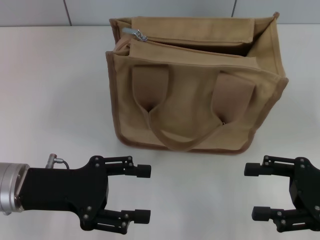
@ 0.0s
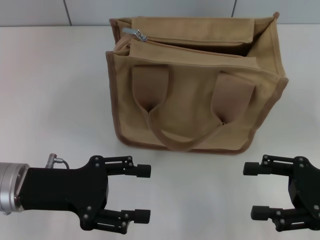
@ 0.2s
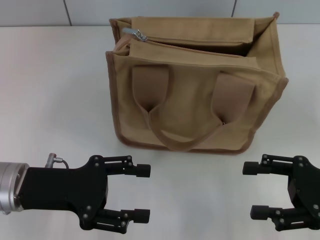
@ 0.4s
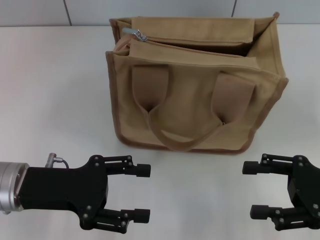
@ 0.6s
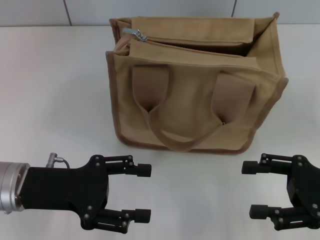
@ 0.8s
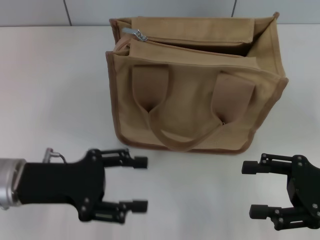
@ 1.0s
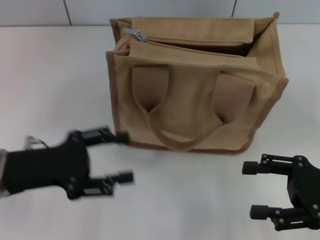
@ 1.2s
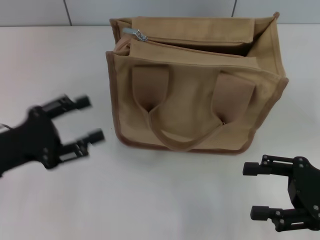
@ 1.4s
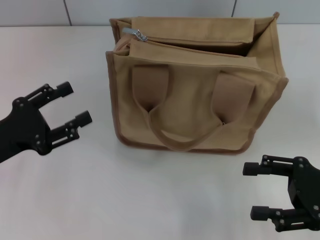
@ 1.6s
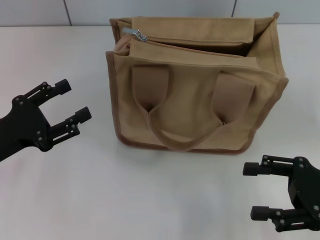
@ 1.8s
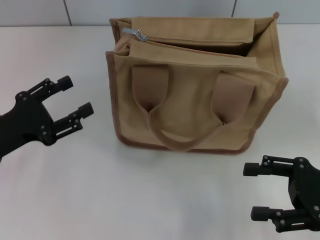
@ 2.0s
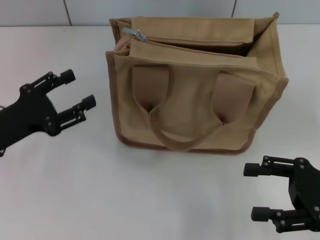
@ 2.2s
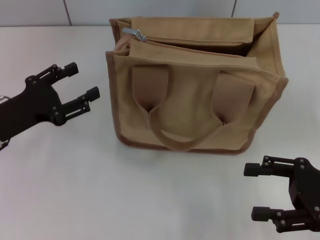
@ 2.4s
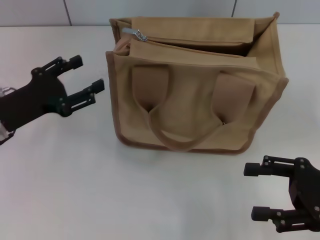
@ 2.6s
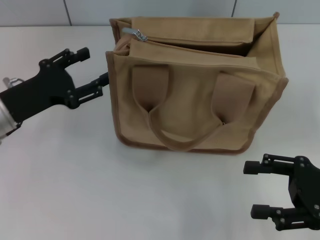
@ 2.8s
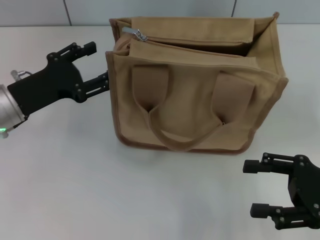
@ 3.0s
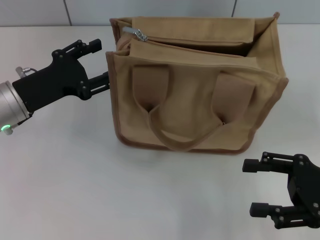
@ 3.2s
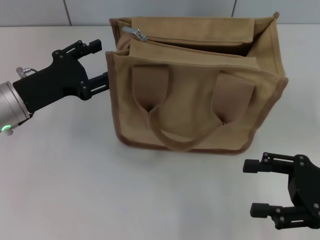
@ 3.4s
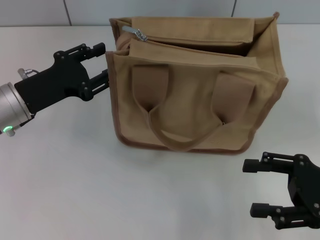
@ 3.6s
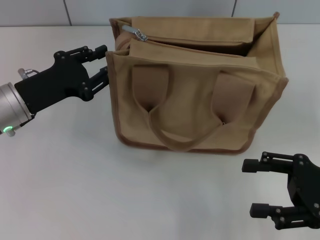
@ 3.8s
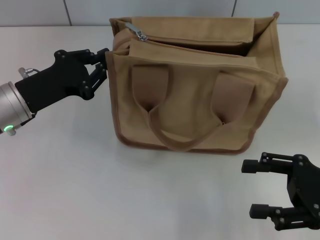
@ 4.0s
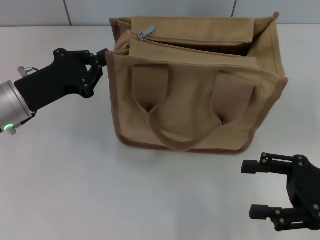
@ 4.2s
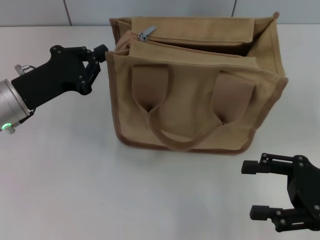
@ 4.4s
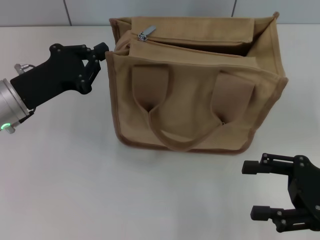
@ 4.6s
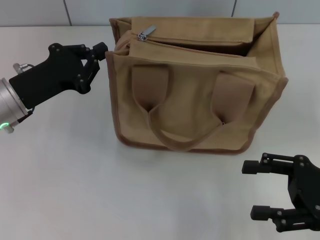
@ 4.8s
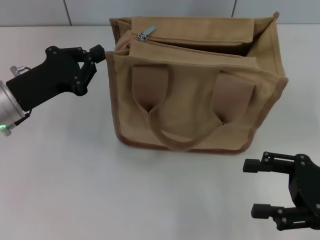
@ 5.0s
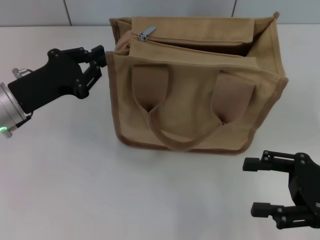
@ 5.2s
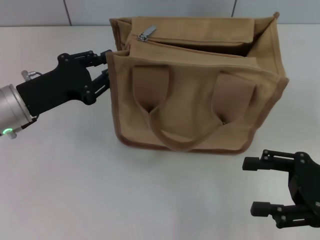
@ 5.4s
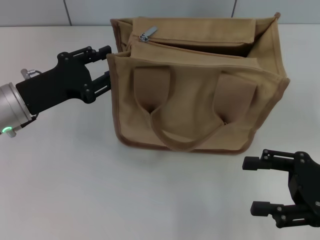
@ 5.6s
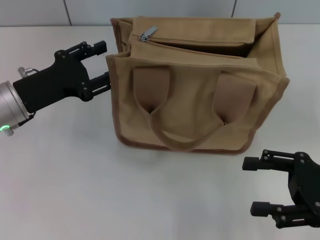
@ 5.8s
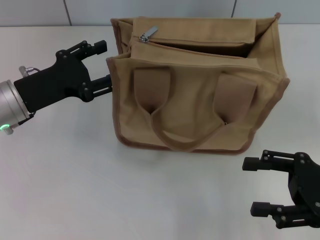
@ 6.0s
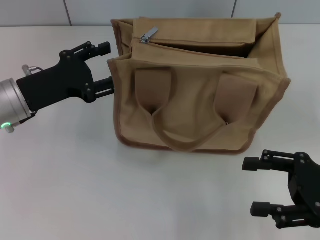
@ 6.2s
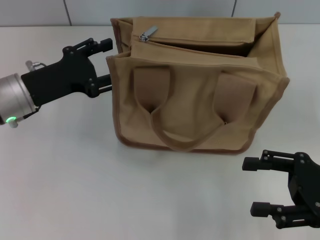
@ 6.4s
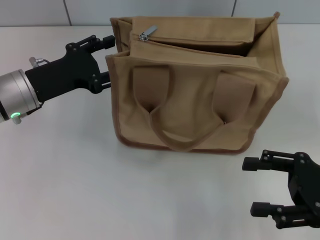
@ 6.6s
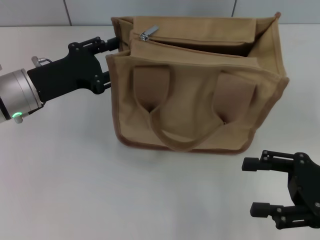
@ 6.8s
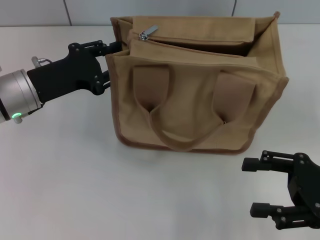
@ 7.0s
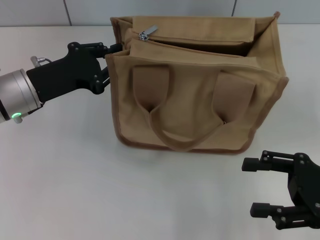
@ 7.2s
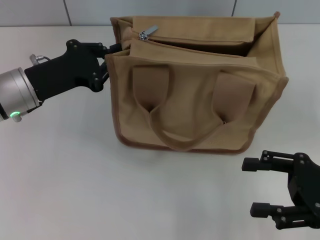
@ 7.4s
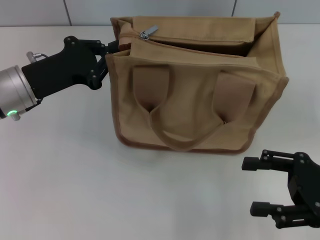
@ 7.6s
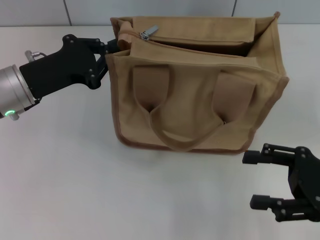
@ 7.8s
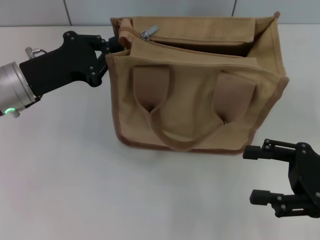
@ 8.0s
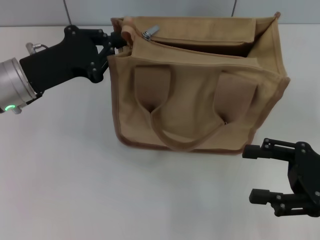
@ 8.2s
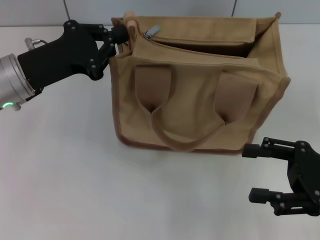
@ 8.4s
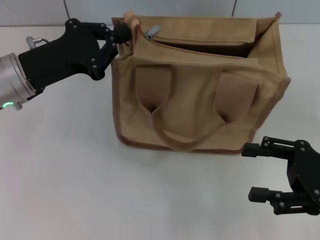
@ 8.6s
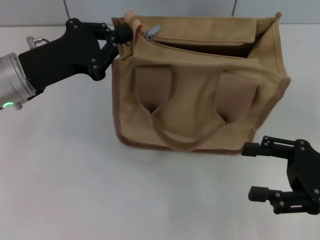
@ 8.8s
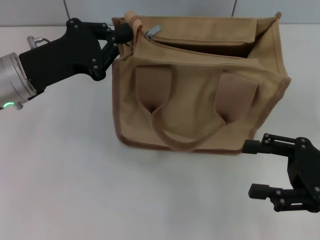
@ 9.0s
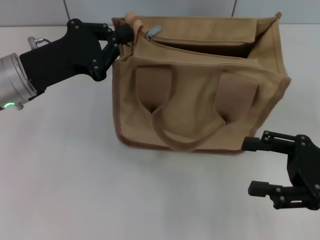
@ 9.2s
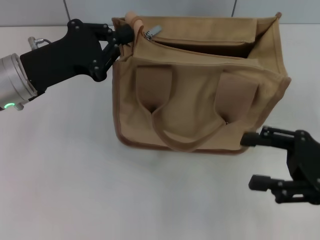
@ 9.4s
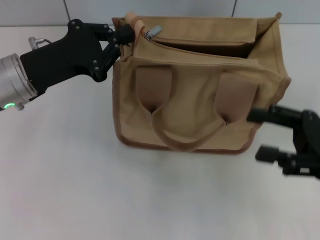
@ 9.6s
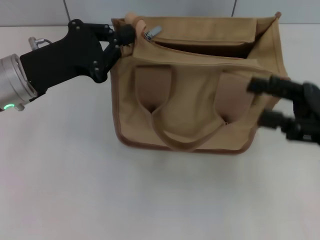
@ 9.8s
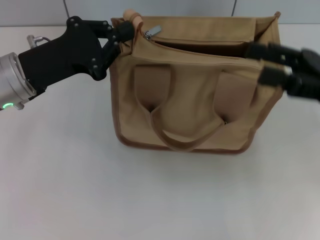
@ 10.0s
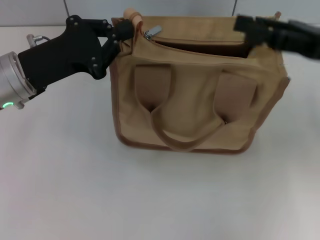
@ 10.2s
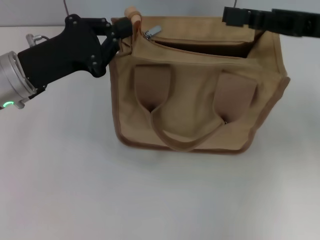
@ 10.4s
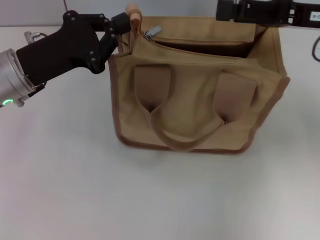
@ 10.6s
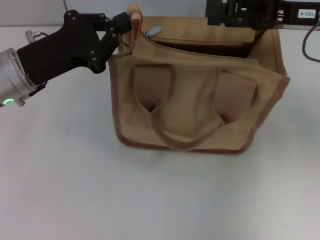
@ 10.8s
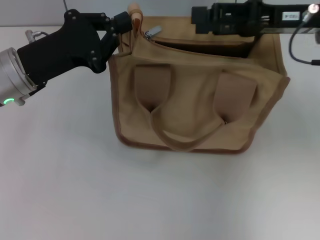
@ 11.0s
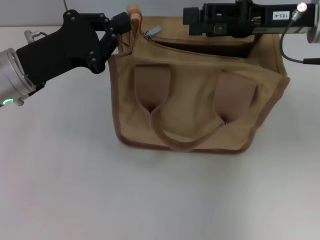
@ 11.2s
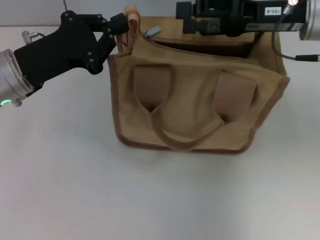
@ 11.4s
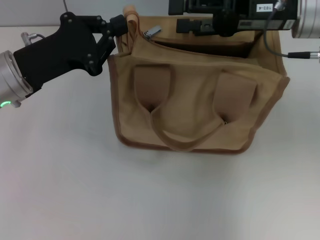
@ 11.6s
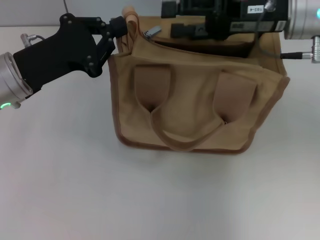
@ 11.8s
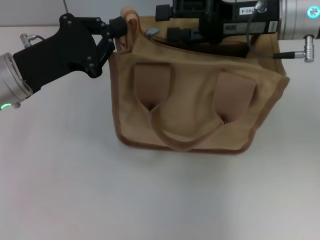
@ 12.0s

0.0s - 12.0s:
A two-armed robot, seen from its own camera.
0.0s - 1.6s: The left gripper travels to the left by about 5 cm.
1.6s - 3.0s: The left gripper is displaced forward by roughly 10 cm.
3.0s - 4.4s: The left gripper closes.
4.4s - 6.0s: The left gripper opens its fingers.
6.0s - 7.6s: The left gripper closes.
7.6s - 9.0s: The grippers make only small movements.
9.0s - 10.4s: The right gripper goes some 15 cm forward and upward.
10.4s - 12.0s: The right gripper goes approximately 10 cm to the left.

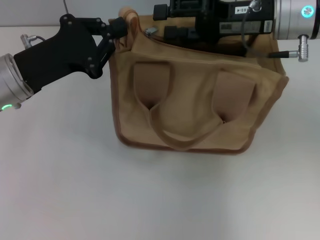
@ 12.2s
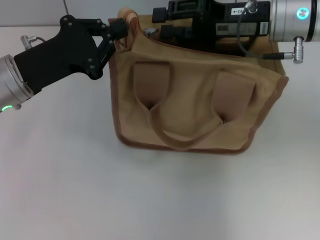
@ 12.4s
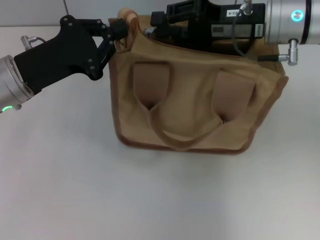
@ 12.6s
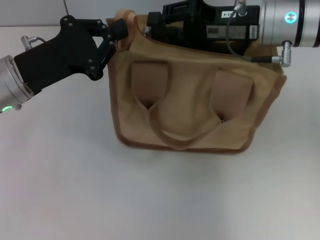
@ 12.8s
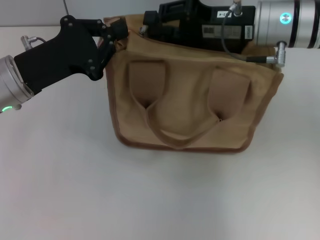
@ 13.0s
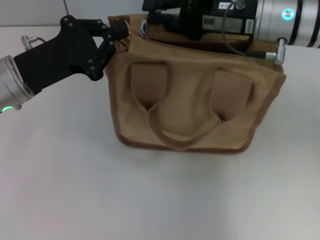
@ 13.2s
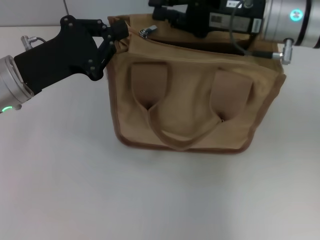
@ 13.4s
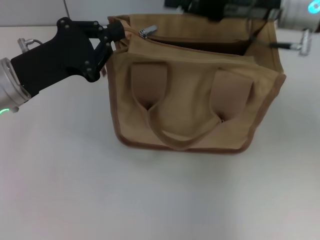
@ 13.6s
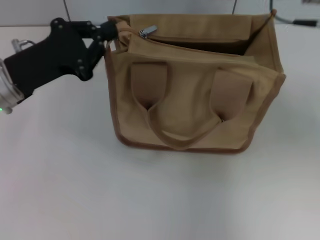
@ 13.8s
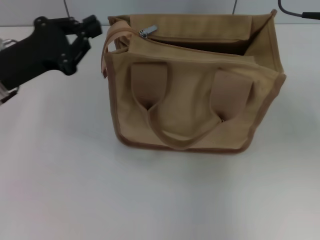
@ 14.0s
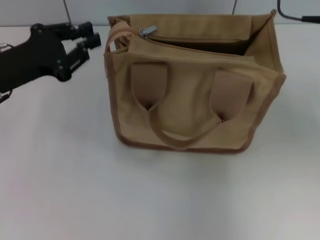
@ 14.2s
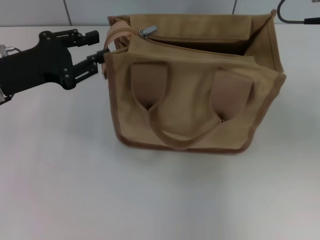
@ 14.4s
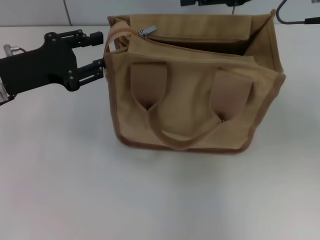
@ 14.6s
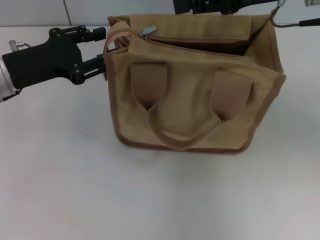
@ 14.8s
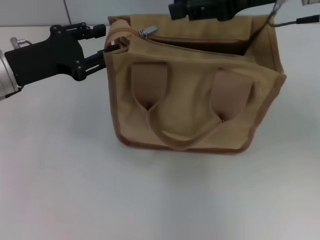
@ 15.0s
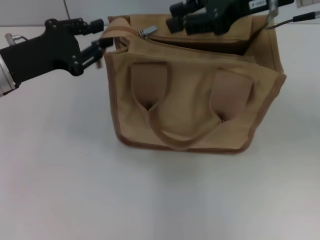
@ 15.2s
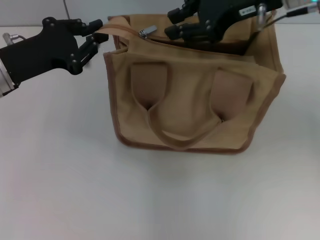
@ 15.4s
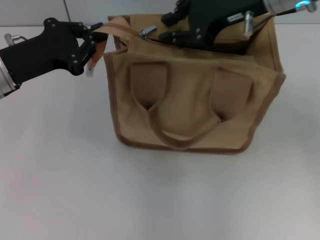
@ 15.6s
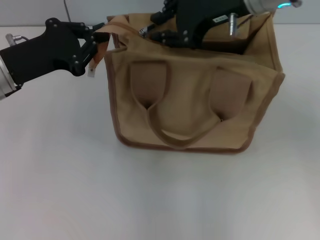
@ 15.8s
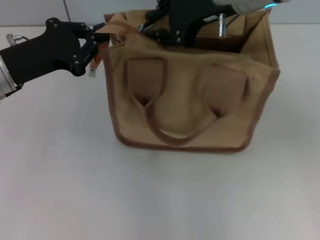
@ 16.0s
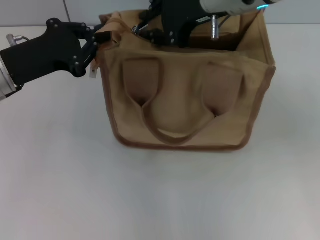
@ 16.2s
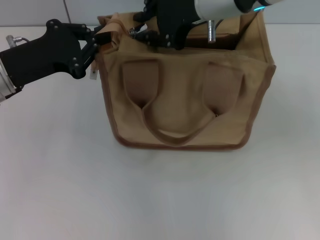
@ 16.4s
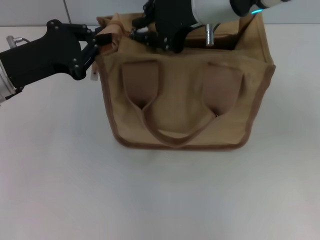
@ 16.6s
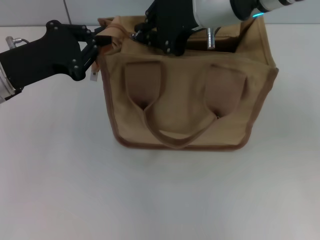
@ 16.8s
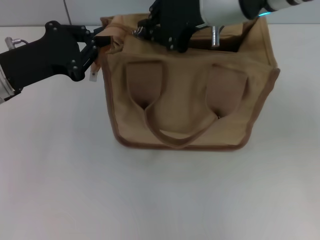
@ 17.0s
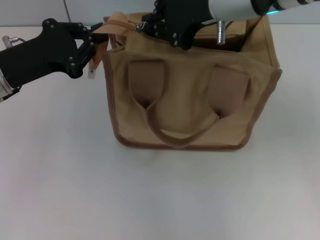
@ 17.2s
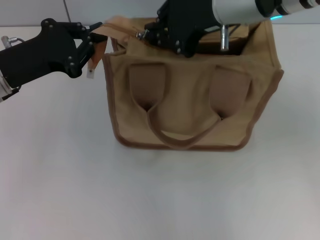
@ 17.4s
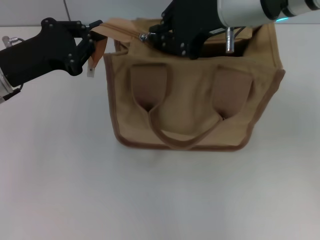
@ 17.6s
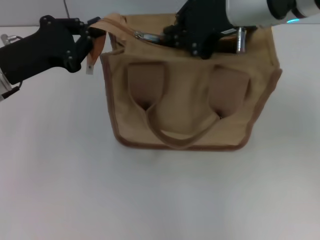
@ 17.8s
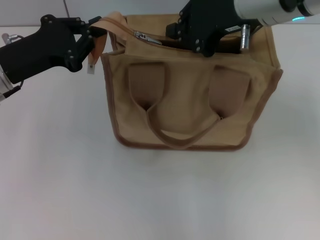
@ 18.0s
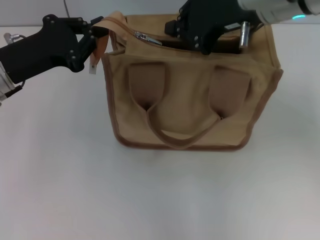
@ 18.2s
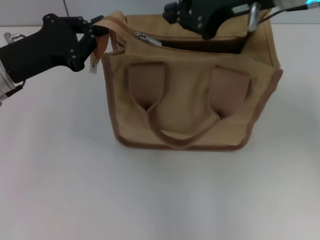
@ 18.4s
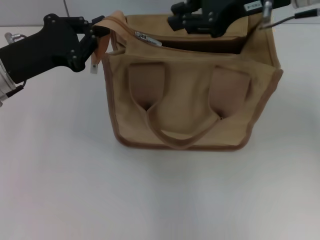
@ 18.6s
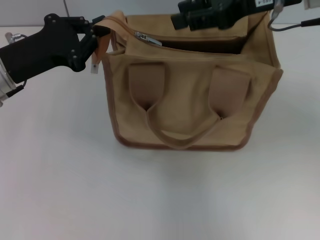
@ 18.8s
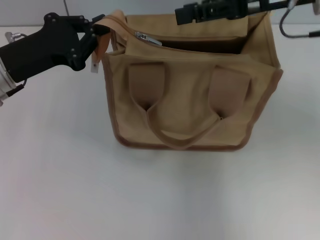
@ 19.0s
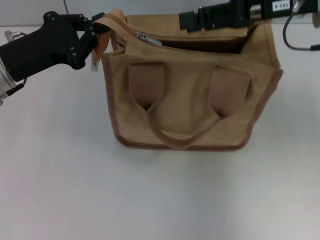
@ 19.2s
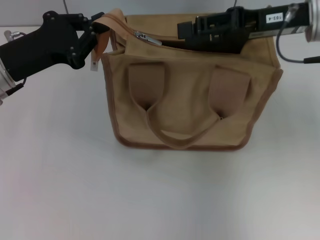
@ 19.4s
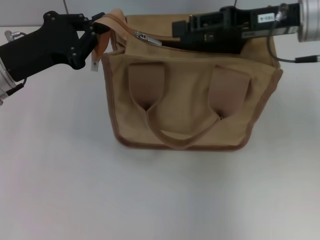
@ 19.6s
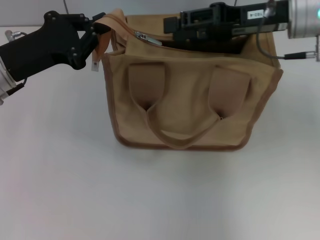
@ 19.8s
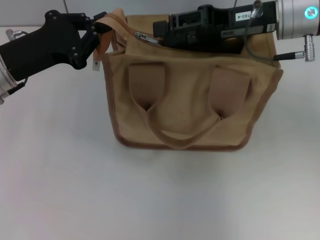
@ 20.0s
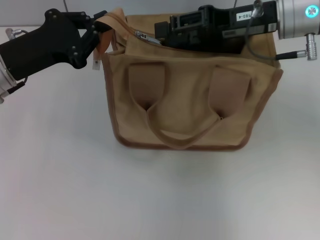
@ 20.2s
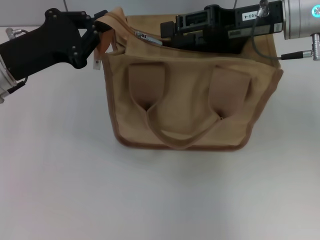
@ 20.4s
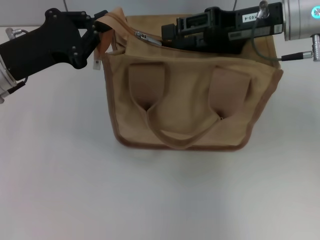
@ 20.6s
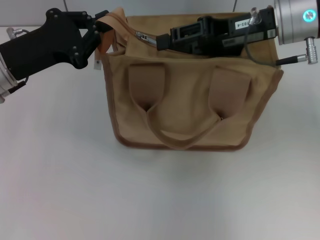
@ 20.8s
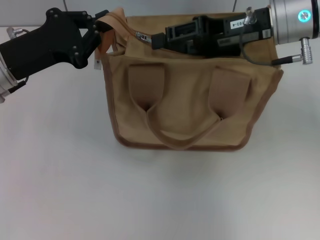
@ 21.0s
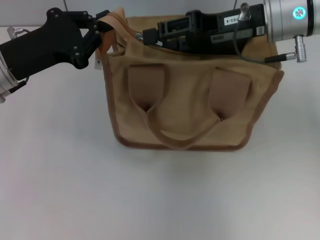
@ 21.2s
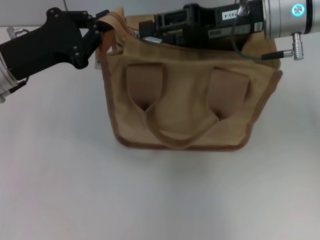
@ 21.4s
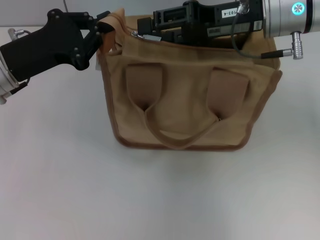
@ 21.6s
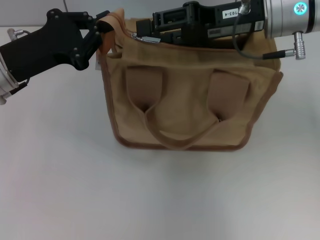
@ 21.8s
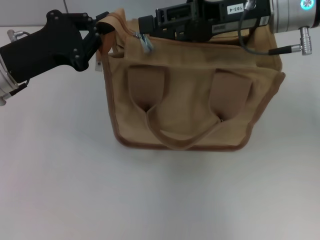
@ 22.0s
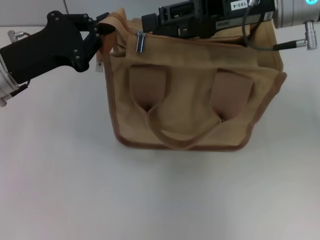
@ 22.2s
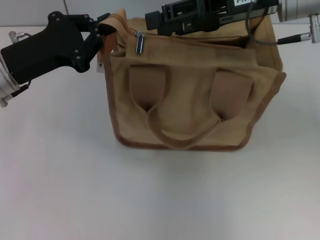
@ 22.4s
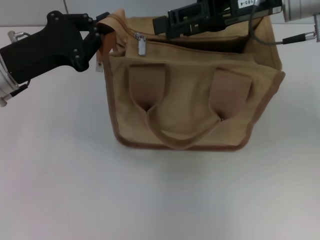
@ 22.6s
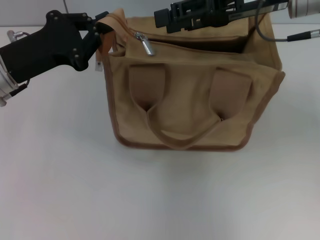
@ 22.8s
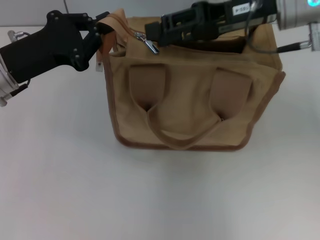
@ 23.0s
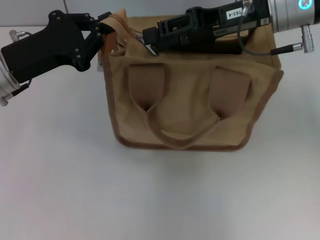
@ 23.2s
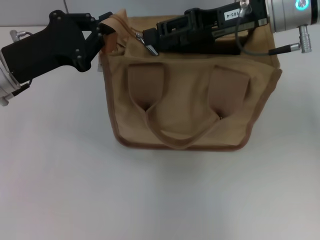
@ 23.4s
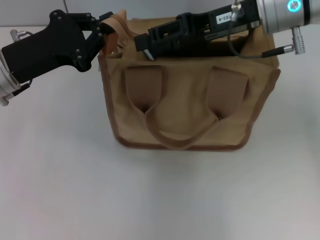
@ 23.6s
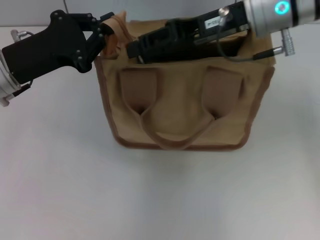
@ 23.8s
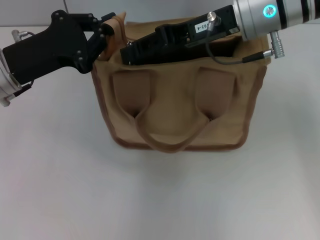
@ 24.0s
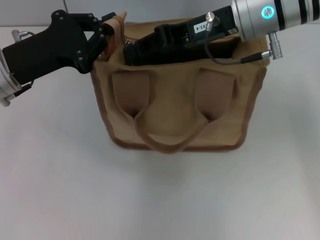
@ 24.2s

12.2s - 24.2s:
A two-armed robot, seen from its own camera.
12.2s - 13.8s: The right gripper shifts by approximately 5 cm, and closes up.
13.8s - 15.2s: The left gripper opens its fingers.
15.2s - 16.6s: The left gripper closes up; the right gripper travels to the left by about 10 cm.
16.6s - 18.2s: There are only small adjustments of the grippers.
18.2s - 19.8s: The right gripper goes approximately 10 cm to the right and downward, and opens up.
19.8s - 22.6s: The grippers make only small movements.
22.6s - 24.2s: The right gripper moves to the left, about 5 cm.
